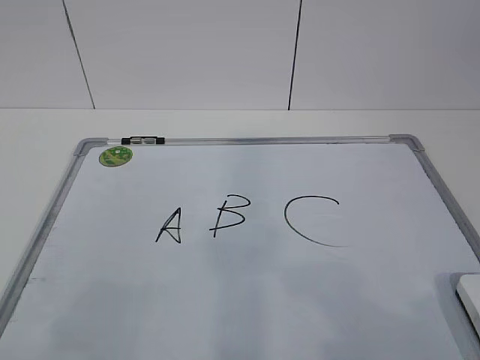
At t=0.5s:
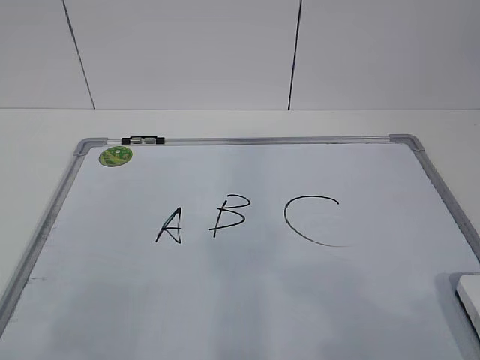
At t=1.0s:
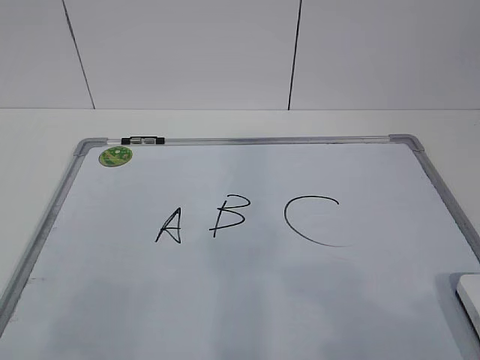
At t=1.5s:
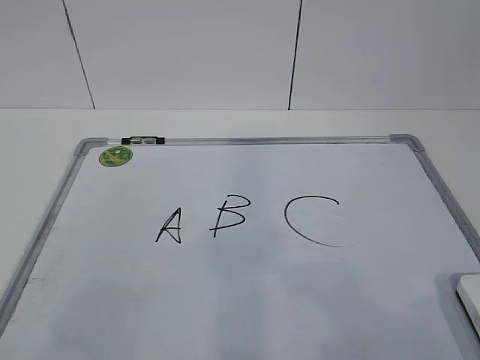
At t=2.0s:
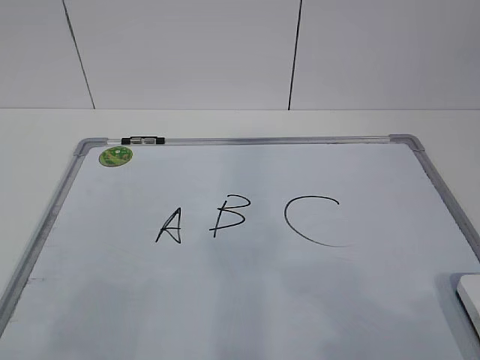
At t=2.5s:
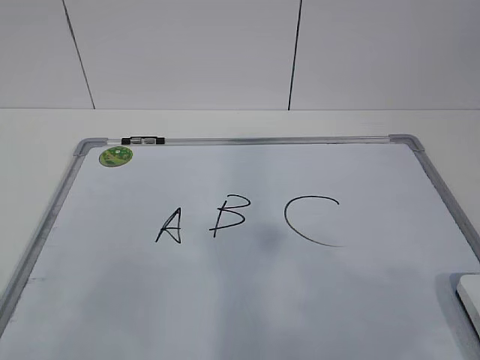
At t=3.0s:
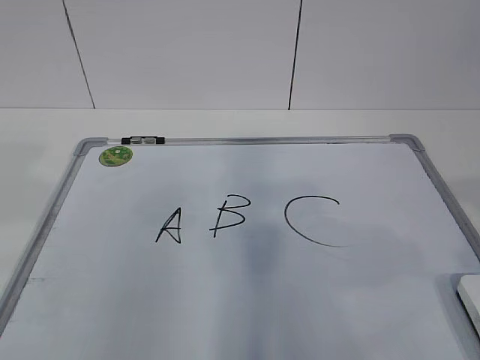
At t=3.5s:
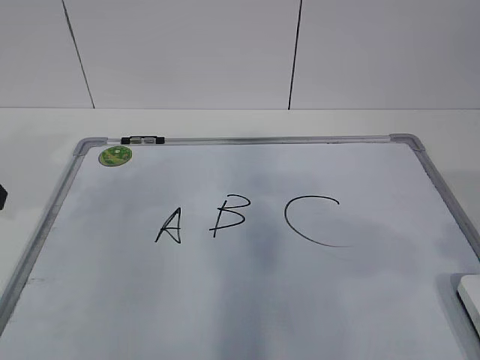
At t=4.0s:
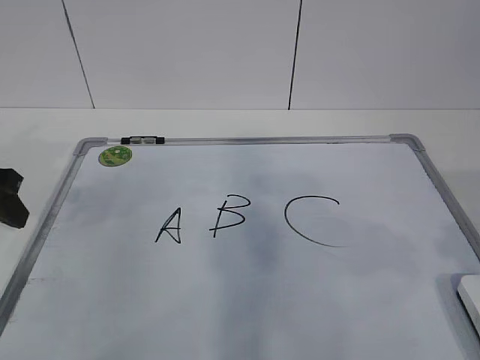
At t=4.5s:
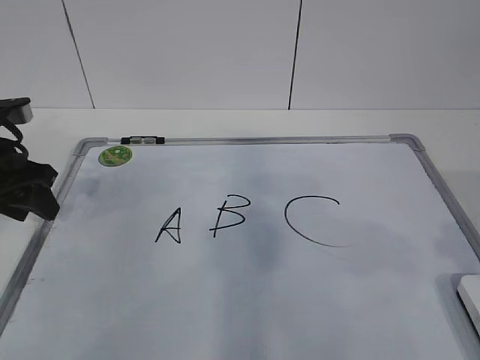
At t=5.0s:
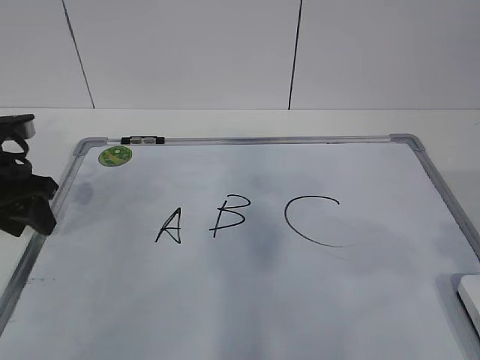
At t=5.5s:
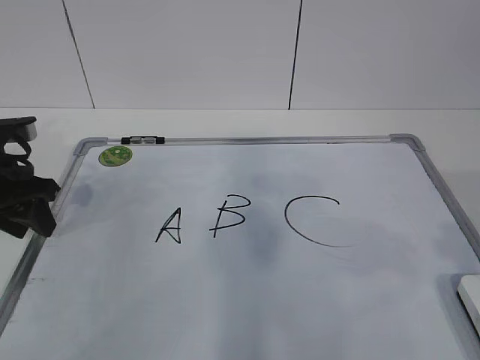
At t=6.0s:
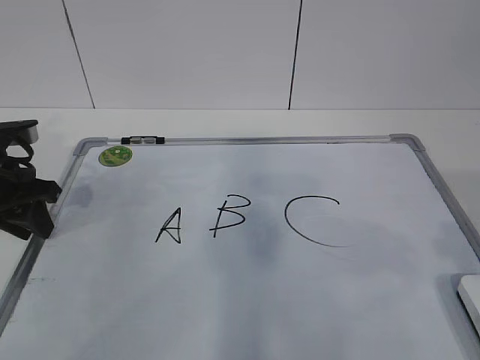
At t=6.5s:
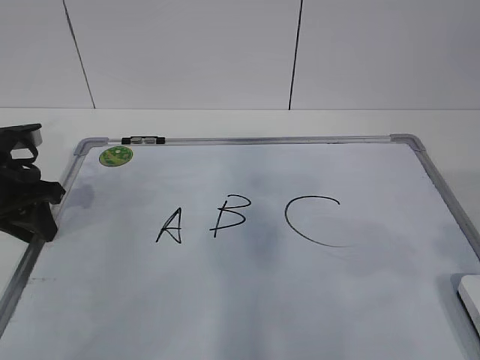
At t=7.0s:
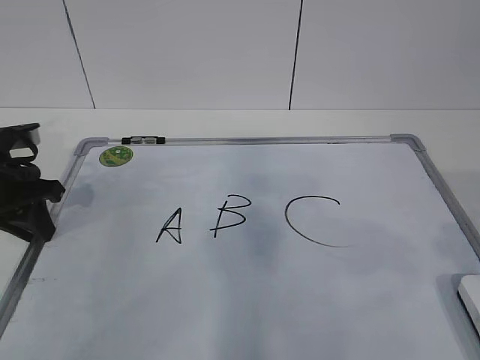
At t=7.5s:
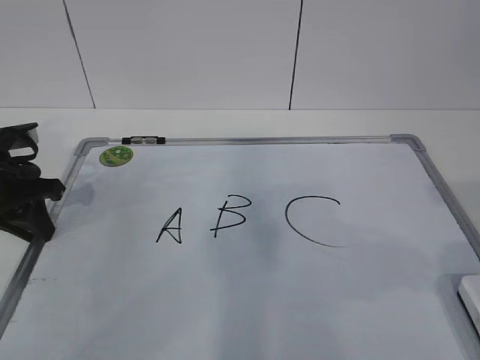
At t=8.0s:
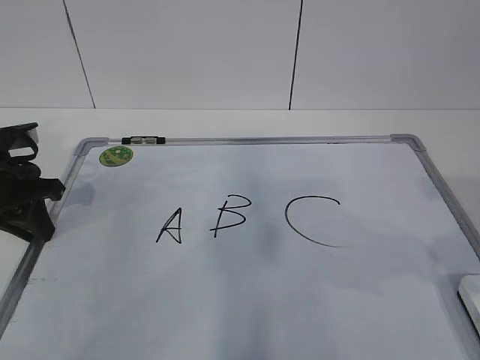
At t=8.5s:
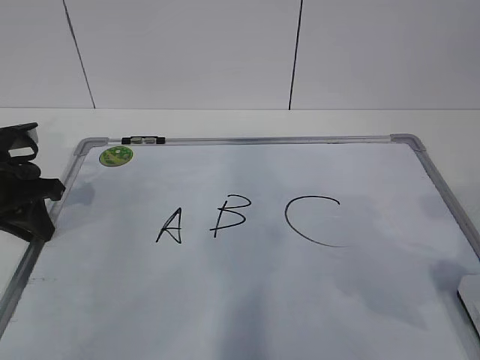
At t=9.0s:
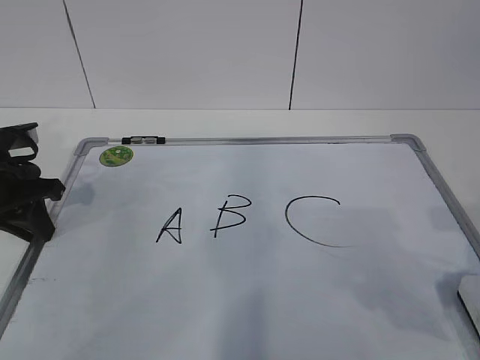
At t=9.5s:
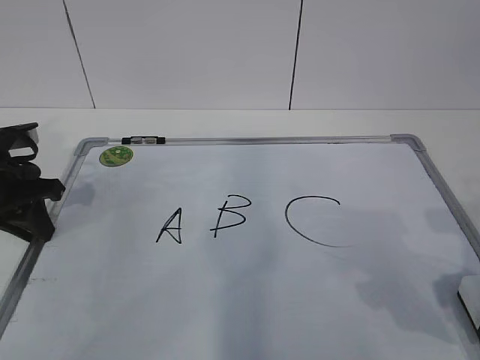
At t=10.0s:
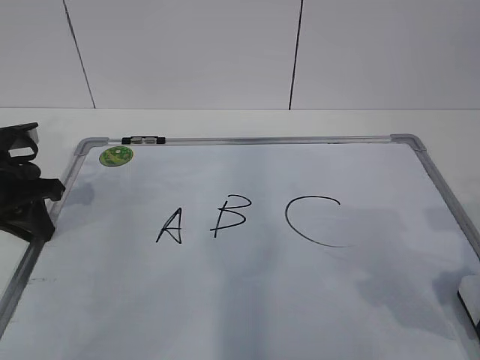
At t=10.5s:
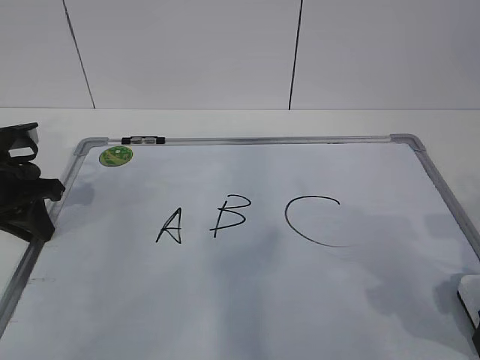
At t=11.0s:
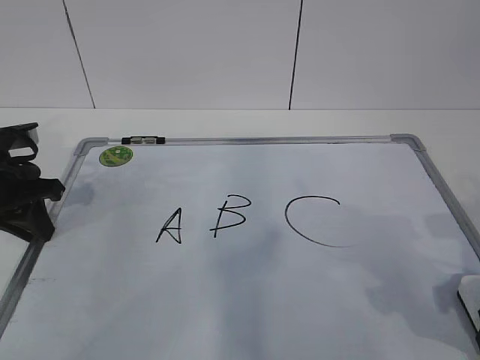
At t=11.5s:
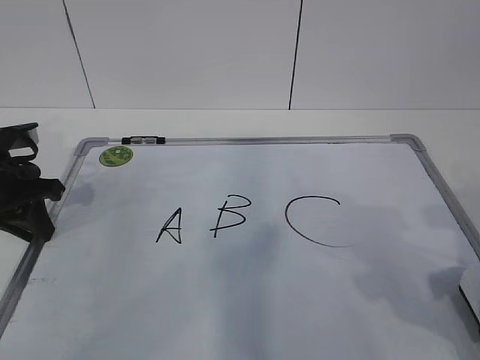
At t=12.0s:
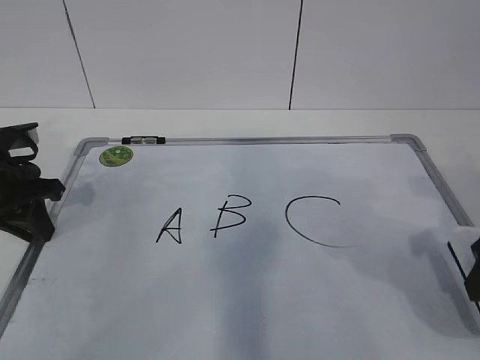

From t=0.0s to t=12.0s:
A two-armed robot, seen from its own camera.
Task of the whole recording: pick up the eraser on the blackboard and erase the letter "B".
Step, from t=0.0s to t=5.5s: Hold the drawing board steady with your left hand.
From t=2.0s to t=4.0s: The right gripper moves forward, approximately 10 cm. Meanwhile the left gripper travels forward by approximately 30 cm.
From t=4.0s to t=6.0s: The left gripper shifts by some 5 cm.
From t=8.0s to t=10.0s: The right gripper is displaced downward by approximately 10 cm.
From t=10.0s to t=12.0s: The right gripper closes its fingers.

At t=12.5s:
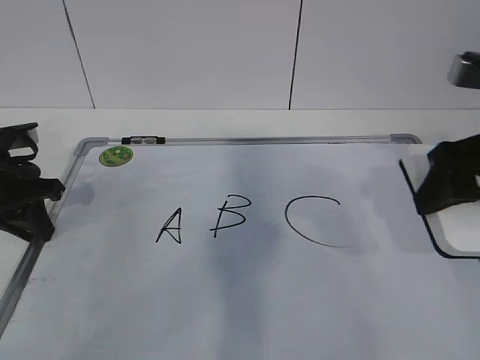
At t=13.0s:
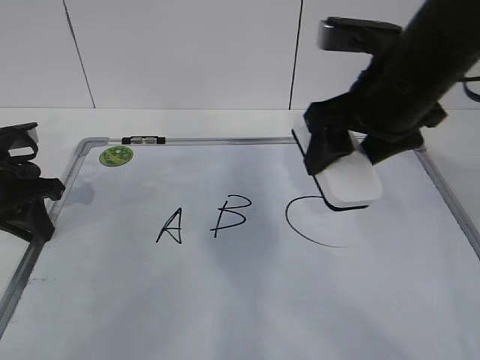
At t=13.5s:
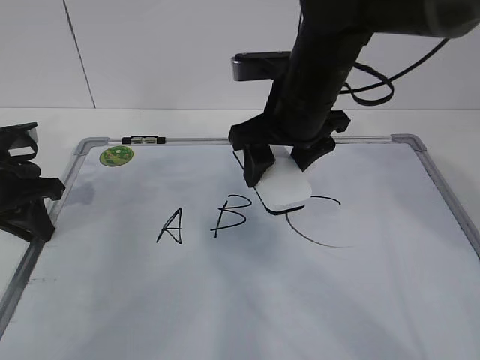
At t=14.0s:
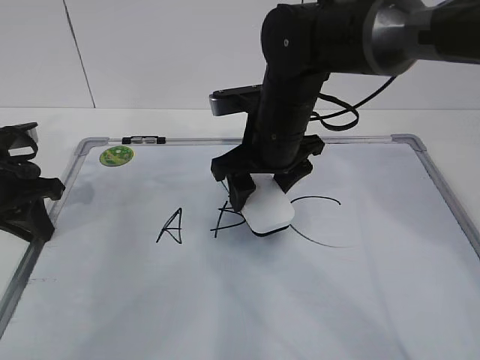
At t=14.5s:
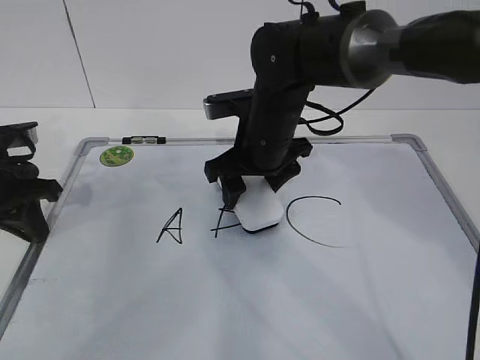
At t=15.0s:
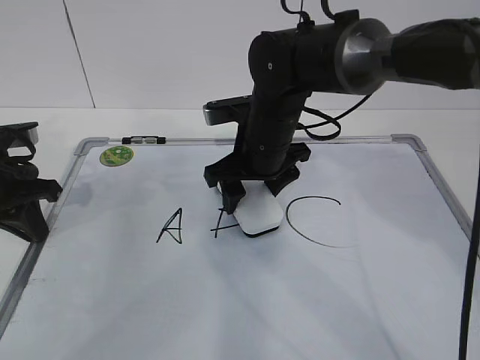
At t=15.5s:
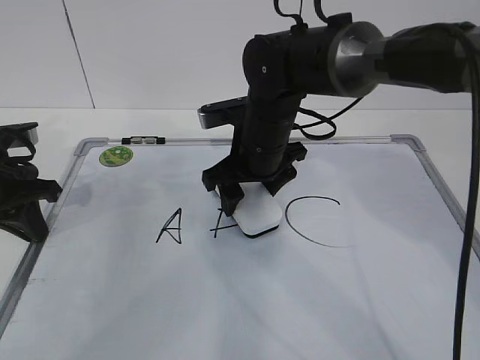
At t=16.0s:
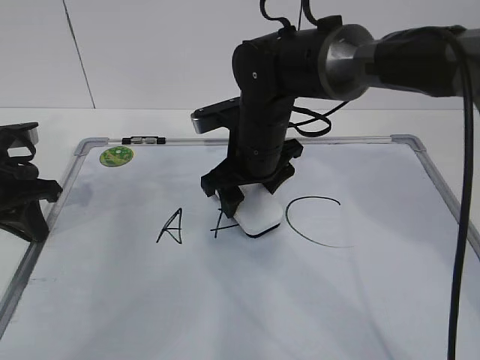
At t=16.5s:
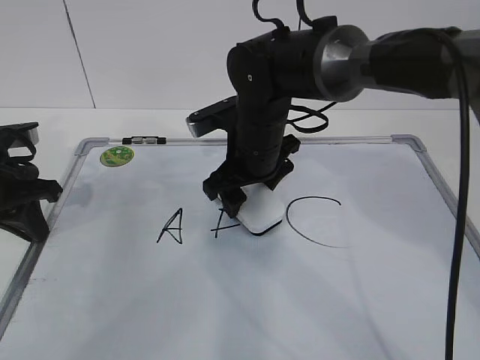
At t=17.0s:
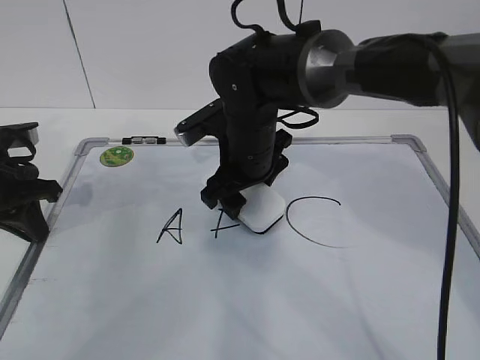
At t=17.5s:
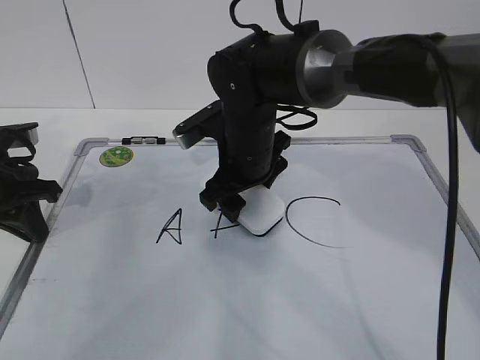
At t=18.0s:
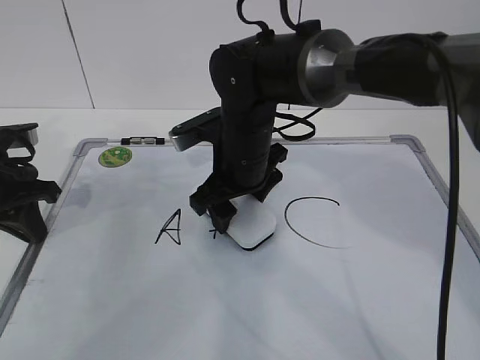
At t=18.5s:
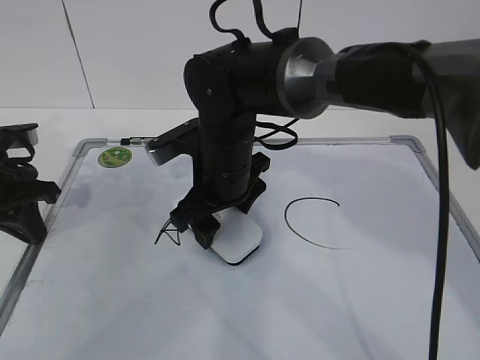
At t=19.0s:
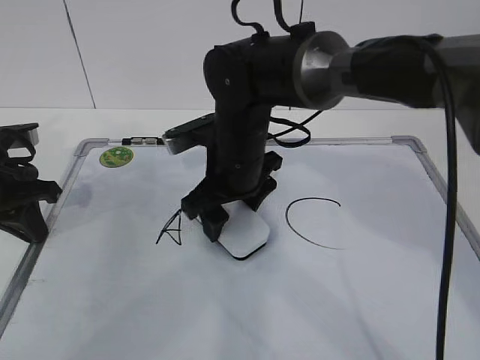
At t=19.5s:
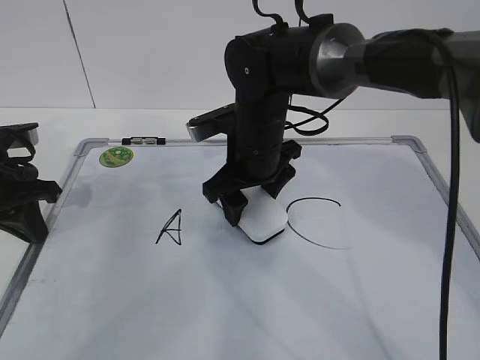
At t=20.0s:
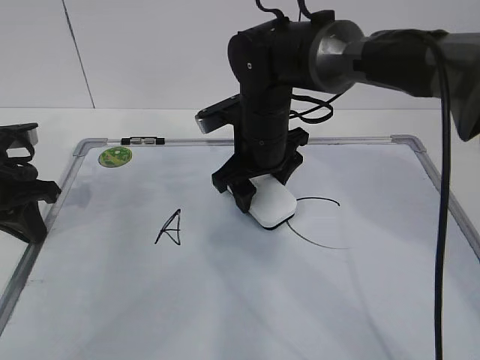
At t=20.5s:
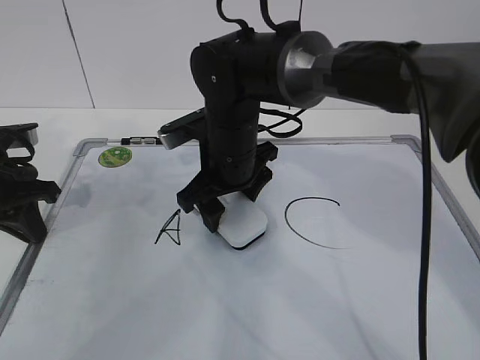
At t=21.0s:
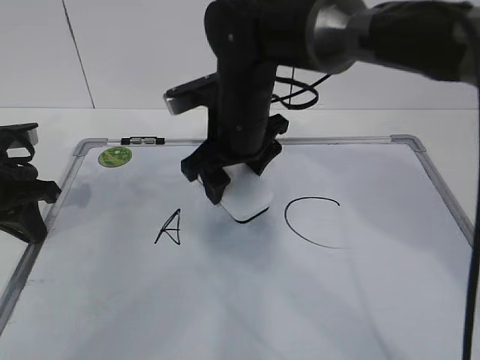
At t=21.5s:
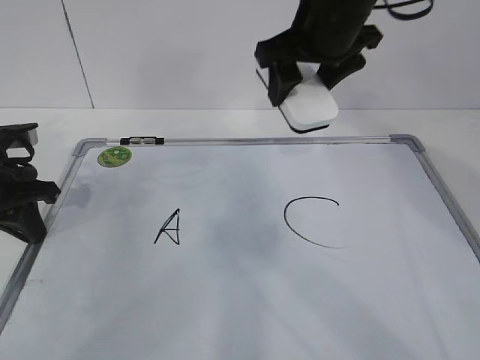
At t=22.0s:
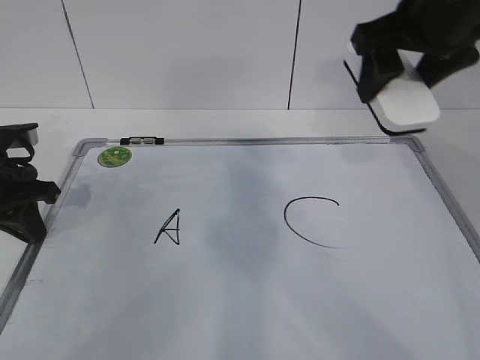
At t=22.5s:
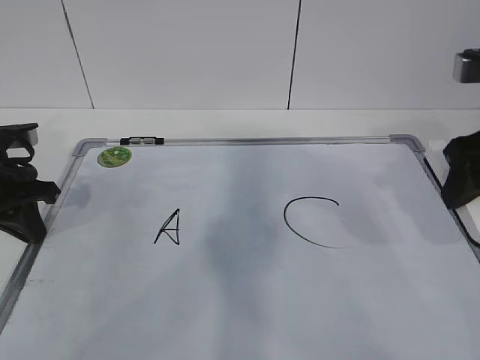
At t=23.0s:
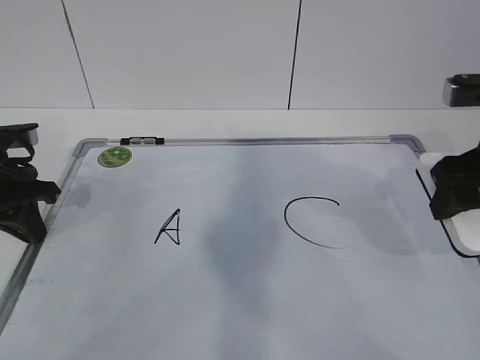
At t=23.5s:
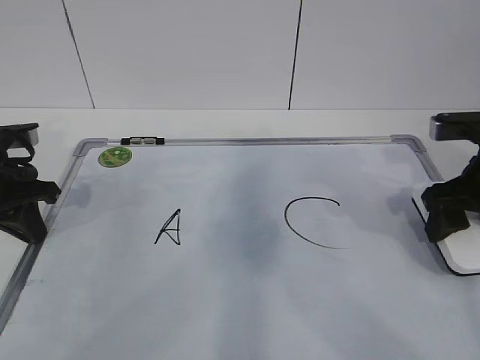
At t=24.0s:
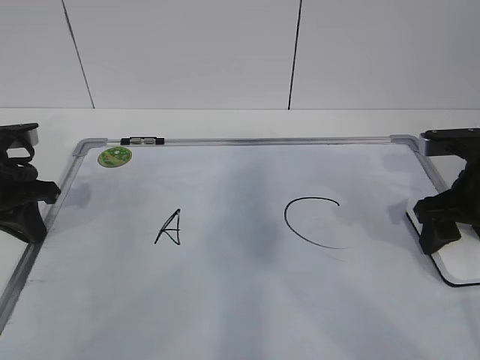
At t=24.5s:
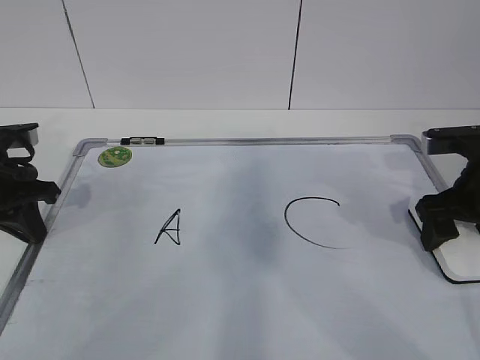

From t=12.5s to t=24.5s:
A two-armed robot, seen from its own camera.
Task of the whole recording: pick up the eraser on the blackboard and erase the letter "B".
Step, from t=12.5s to t=17.0s: Erase the letter B with your right hand.
Step, from t=17.5s to t=20.0s: Put down the eraser with your right hand.
From t=12.5s to t=14.5s: The right gripper is displaced to the left, forward and downward by some 25 cm.
From t=14.5s to t=16.5s: The grippers move only a little.
From t=16.5s to t=18.5s: The right gripper changes place by roughly 5 cm.
From t=20.5s to t=22.5s: The right gripper travels to the right and upward by some 30 cm.
From t=22.5s to t=24.5s: The right gripper is displaced downward by approximately 10 cm, and opens.

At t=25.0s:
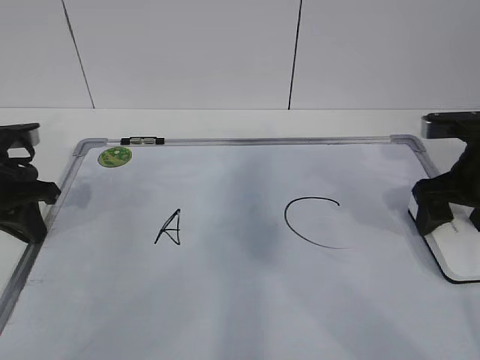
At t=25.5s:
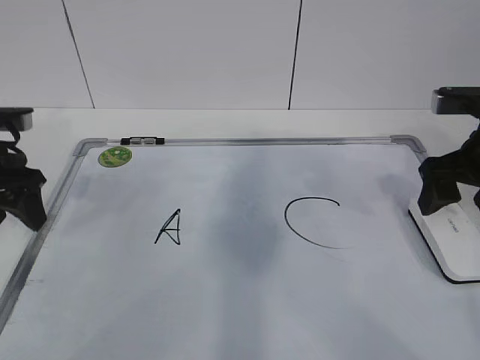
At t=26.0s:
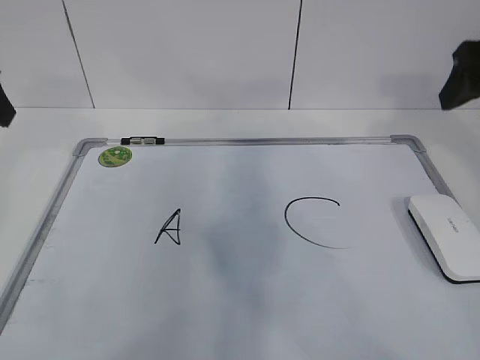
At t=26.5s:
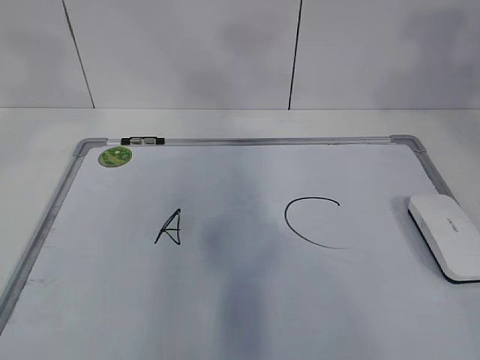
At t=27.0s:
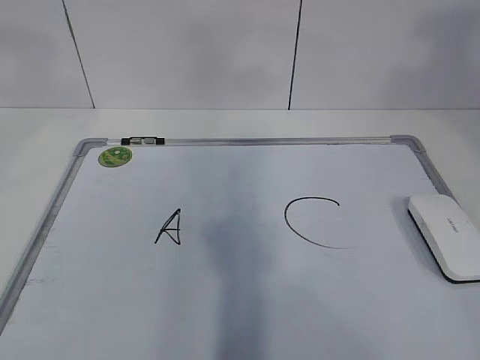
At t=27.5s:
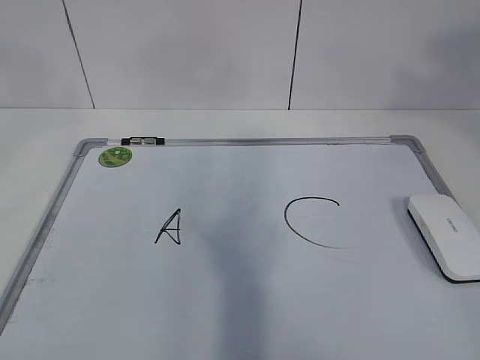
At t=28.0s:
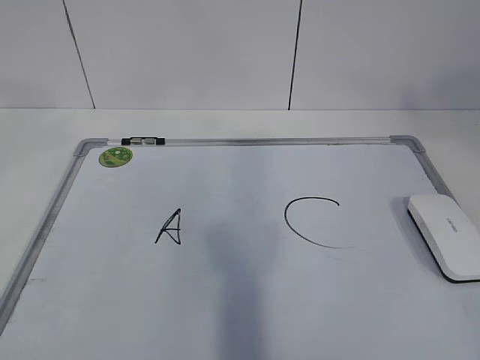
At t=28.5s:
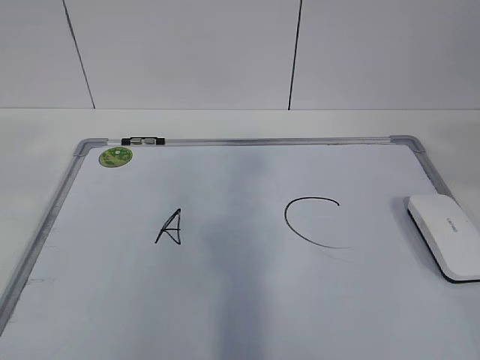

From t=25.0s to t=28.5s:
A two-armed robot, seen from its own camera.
Task of the whole recording: pick up the eraser on the blackboard and erase the letter "B".
From t=25.0s to t=27.0s: The left gripper moves upward and backward, approximately 35 cm, and opens its fingers. The right gripper goes about 30 cm upward, and closes up.
